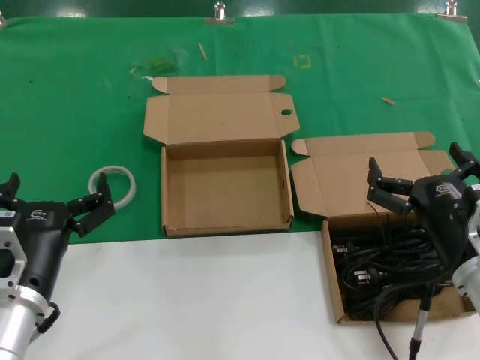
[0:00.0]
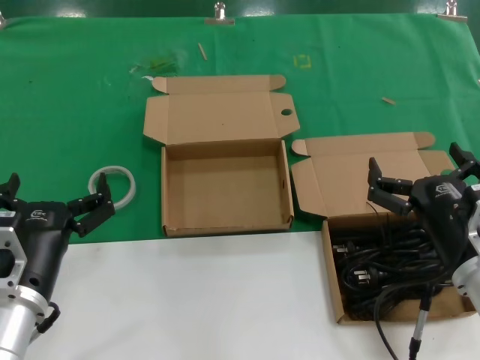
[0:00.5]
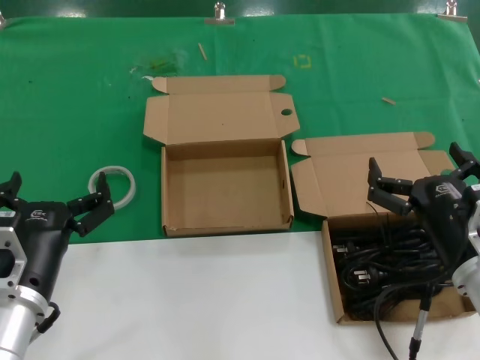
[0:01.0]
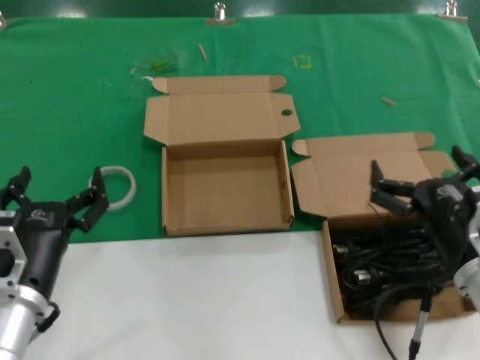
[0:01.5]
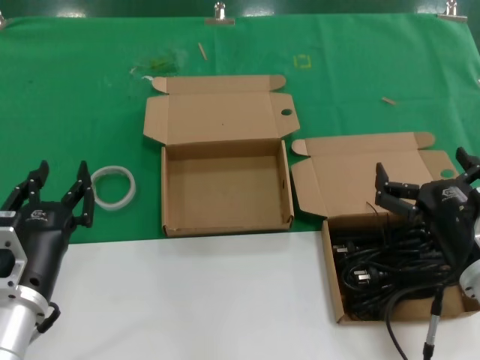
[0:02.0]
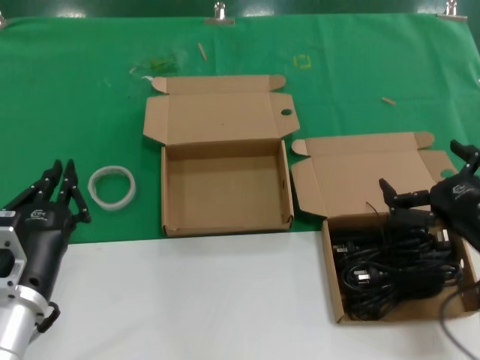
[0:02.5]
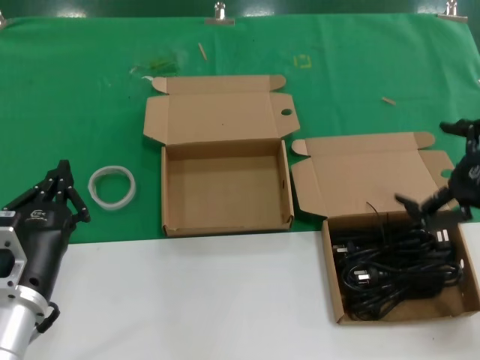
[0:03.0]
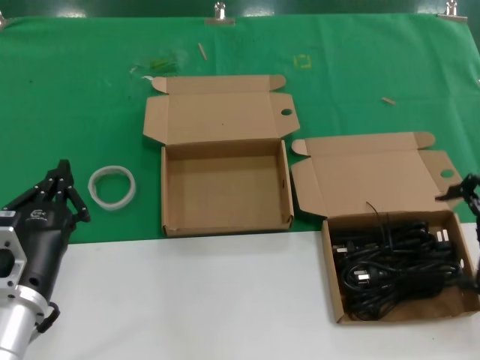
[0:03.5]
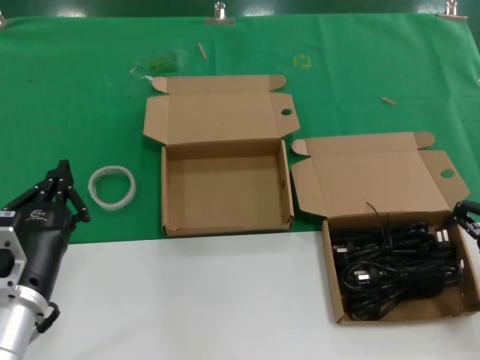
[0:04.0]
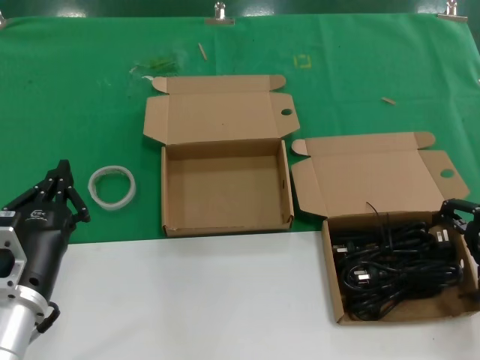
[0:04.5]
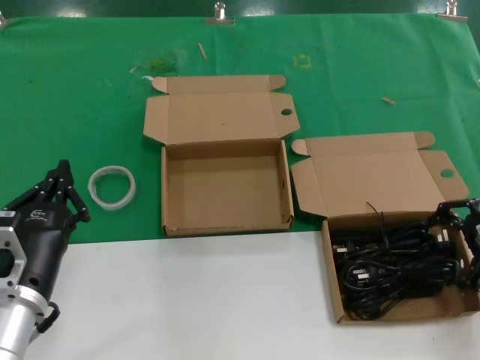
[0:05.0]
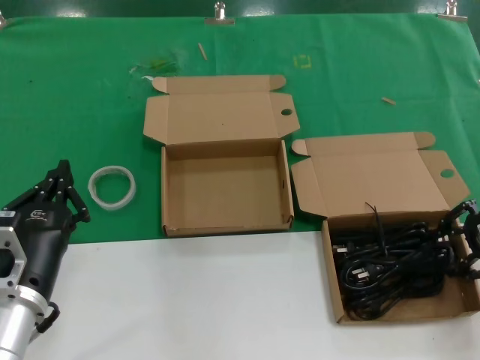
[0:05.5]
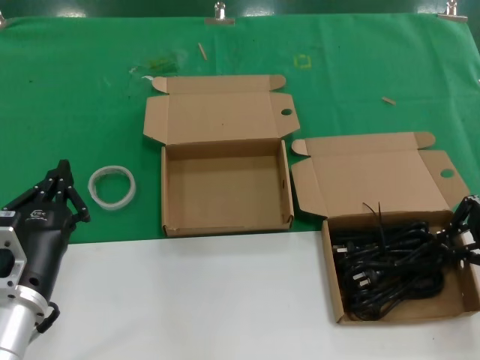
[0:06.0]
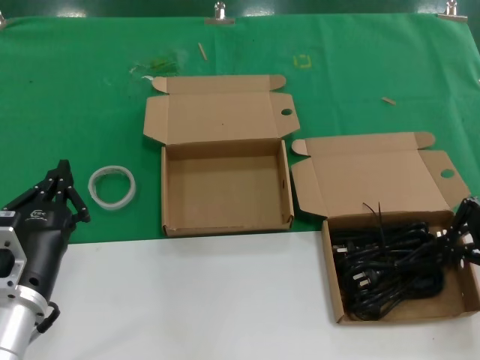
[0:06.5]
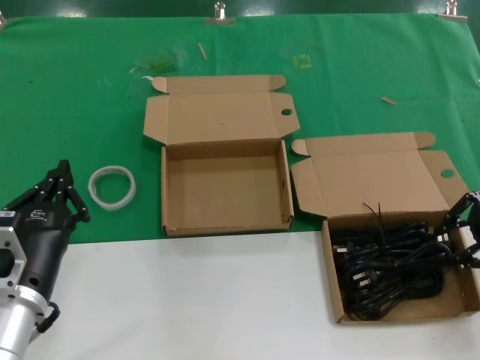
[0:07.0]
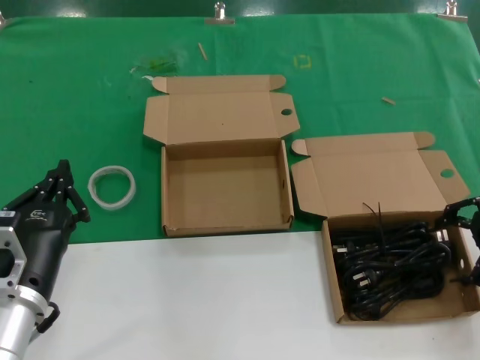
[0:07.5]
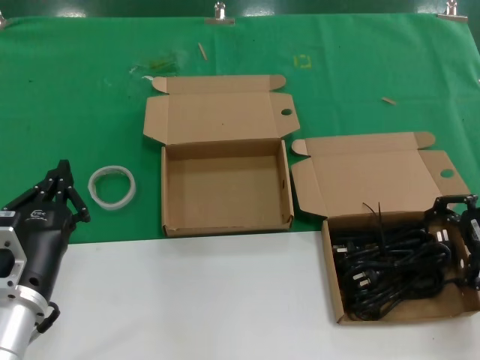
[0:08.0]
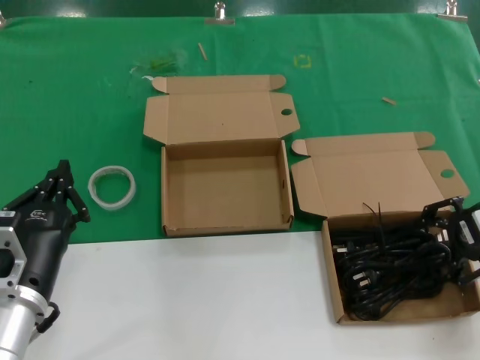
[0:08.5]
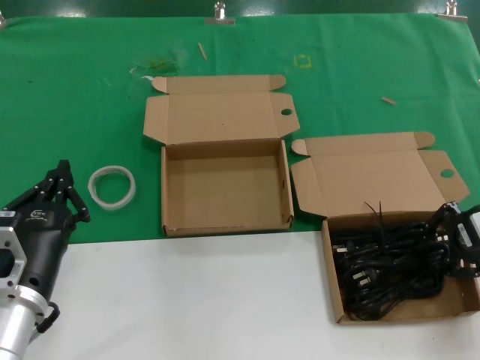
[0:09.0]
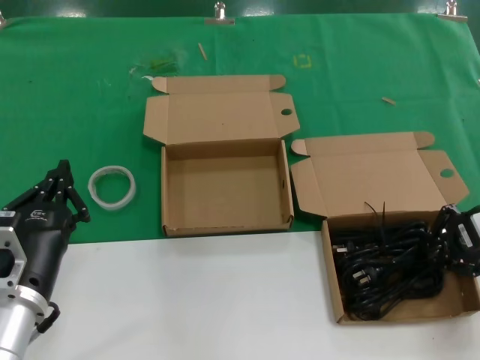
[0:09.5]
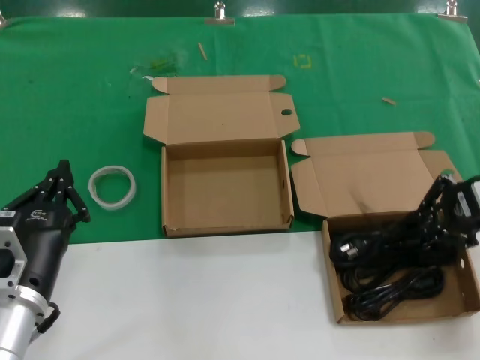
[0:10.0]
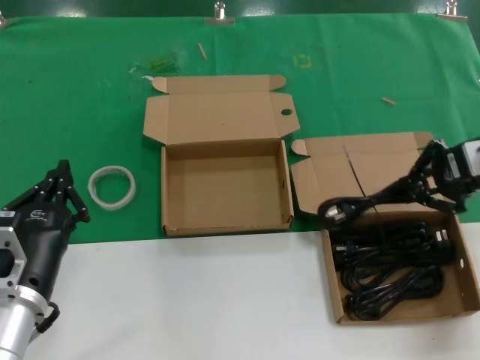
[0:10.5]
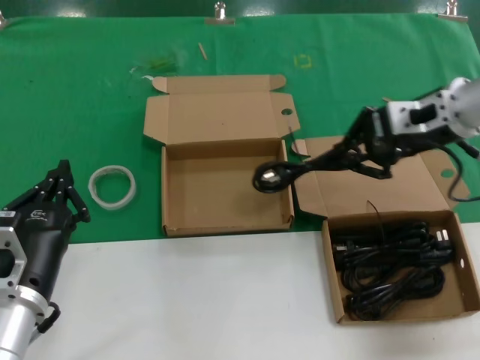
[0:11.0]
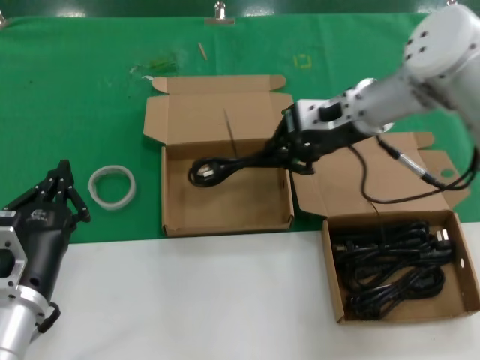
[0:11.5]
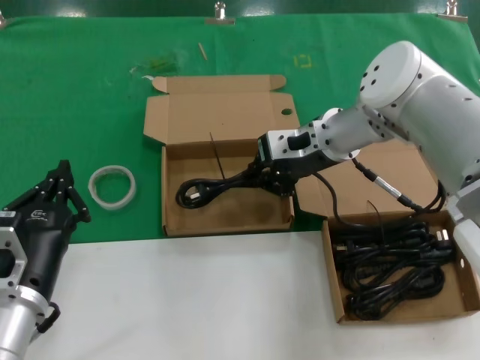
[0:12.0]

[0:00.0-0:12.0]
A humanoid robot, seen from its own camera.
Task of the whole recording: take the parts from the box containing them and put them into an empty box.
Step, 0:00.0 to 0:09.0: Grasp the data cable.
0:00.0 to 0:02.0: Neither hand changes place.
0:02.0 to 0:04.0: The right hand goes roughly 20 cm to the right, upward and forward.
0:04.0 to 0:10.0: The hands make only small movements.
0:10.0 to 0:12.0: The right hand travels to the left and forward by roughly 25 cm.

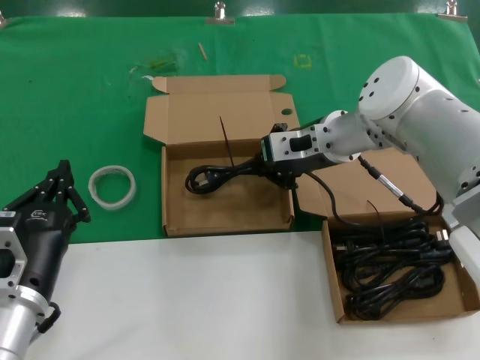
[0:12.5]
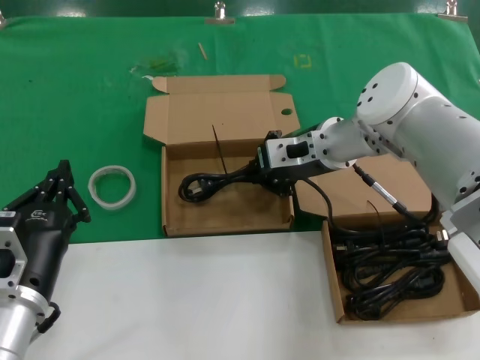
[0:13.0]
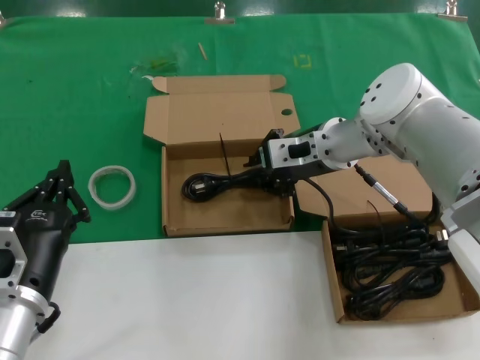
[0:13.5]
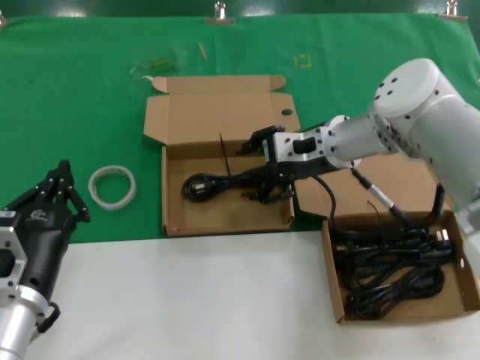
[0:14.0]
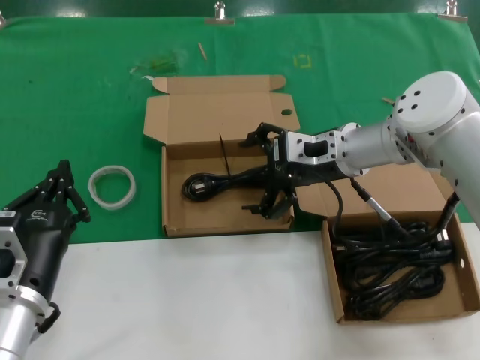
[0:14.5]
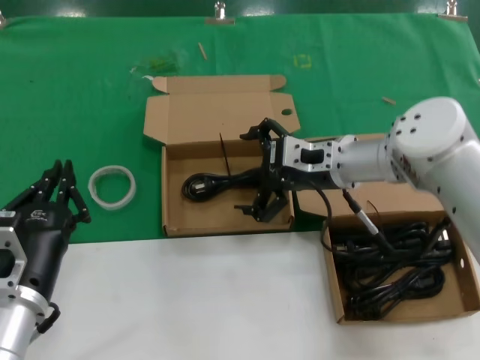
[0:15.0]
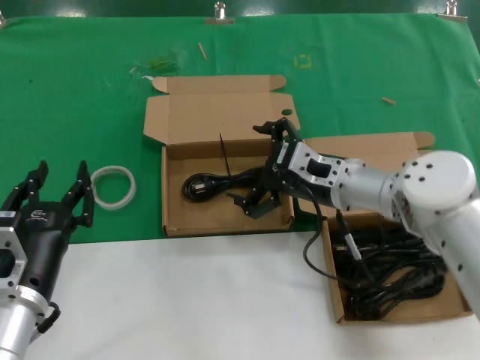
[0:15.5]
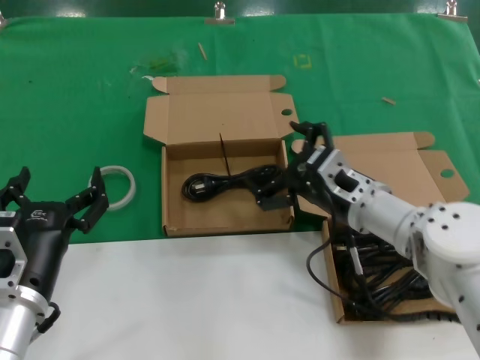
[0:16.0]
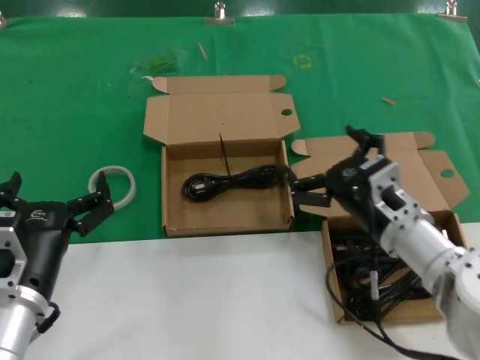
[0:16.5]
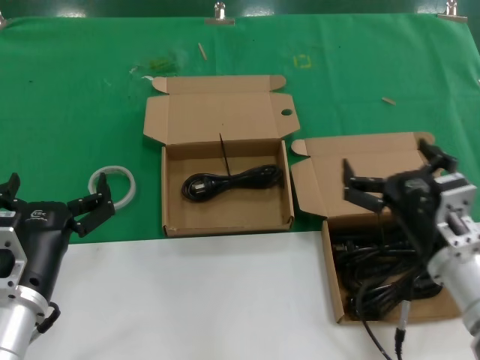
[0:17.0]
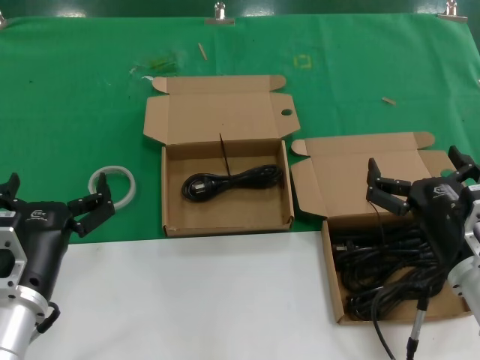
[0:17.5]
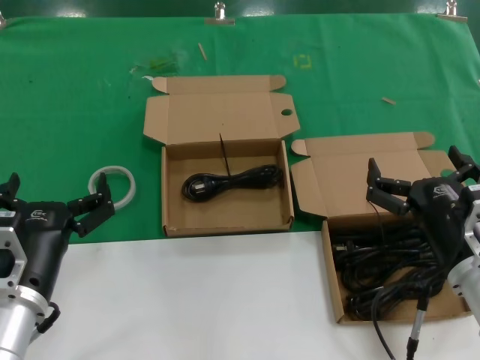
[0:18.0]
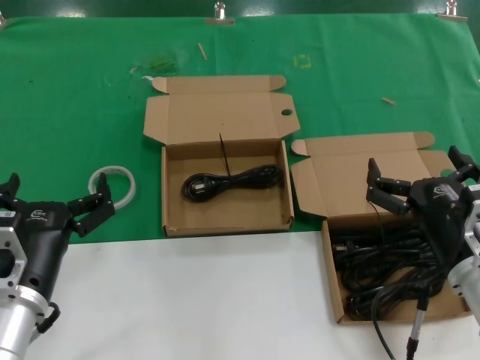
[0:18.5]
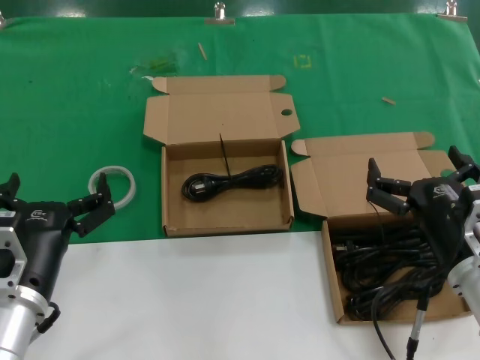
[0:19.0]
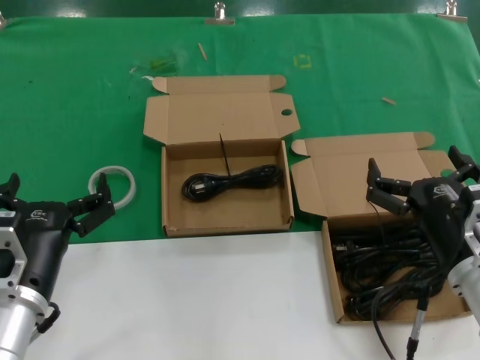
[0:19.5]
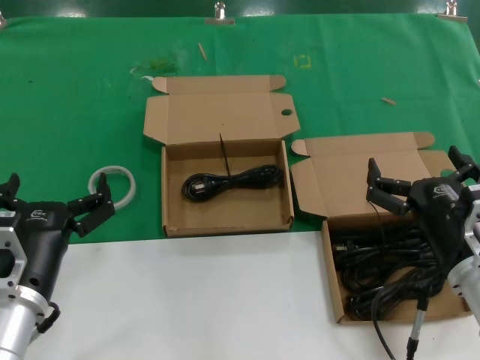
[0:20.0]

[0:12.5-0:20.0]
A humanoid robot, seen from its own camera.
Task of the whole recording: take the parts from the box containing them and put them into an empty box.
0:12.5 to 0:14.5: The hands move only a little.
0:14.5 to 0:16.5: The right hand moves backward and downward, about 15 cm.
0:16.5 to 0:18.0: The right hand shifts approximately 10 cm backward.
0:18.0 to 0:20.0: Both hands stay put.

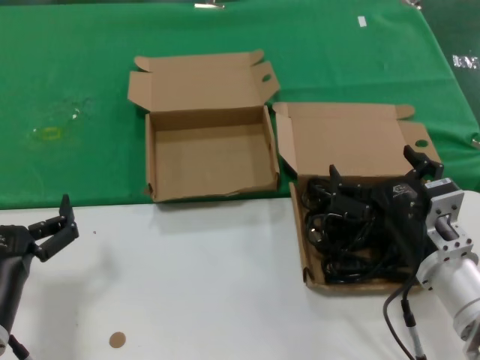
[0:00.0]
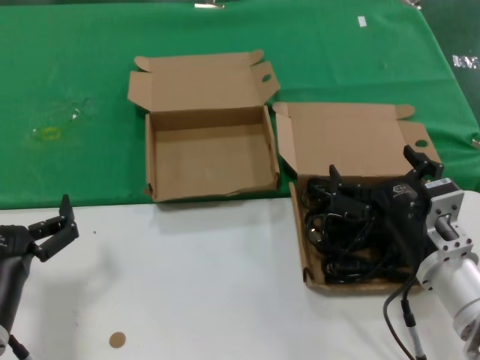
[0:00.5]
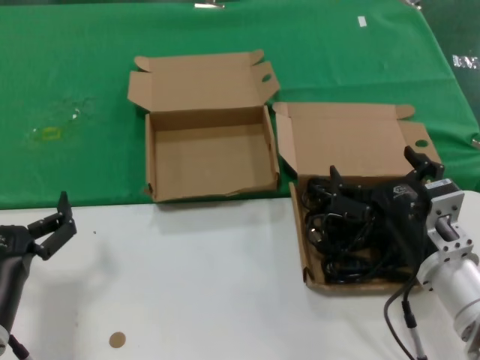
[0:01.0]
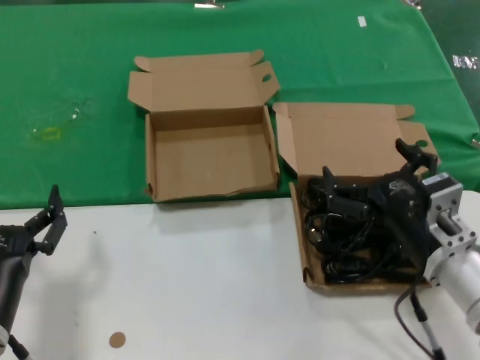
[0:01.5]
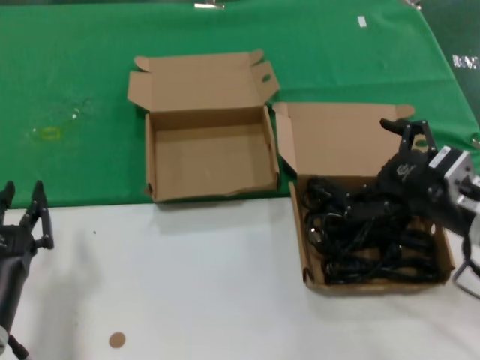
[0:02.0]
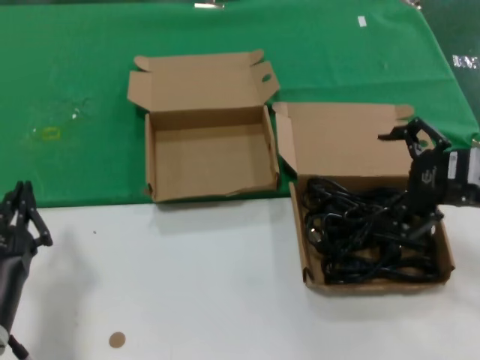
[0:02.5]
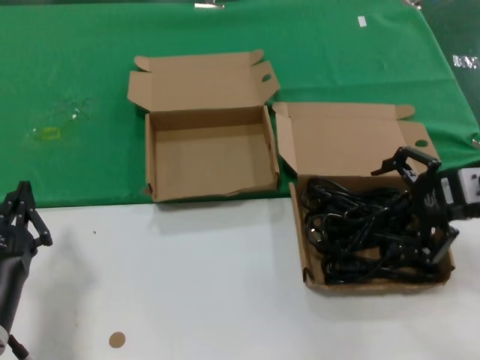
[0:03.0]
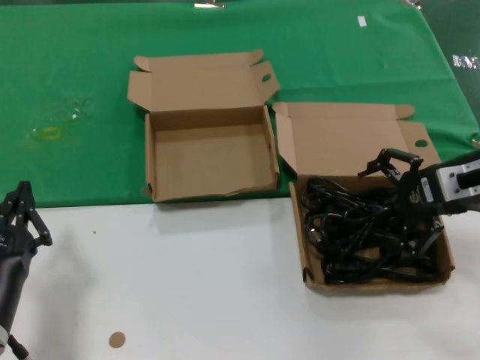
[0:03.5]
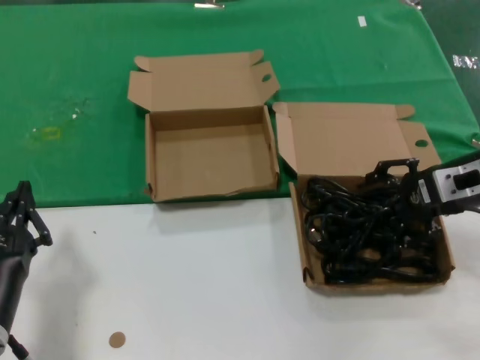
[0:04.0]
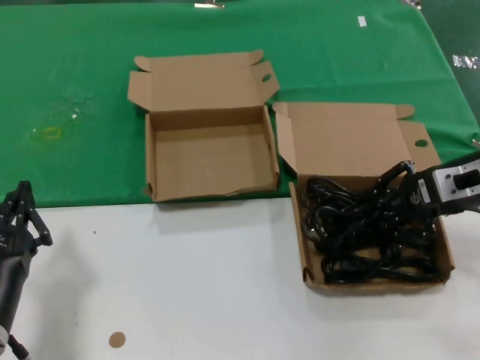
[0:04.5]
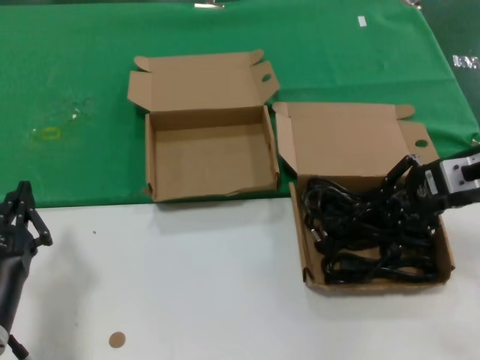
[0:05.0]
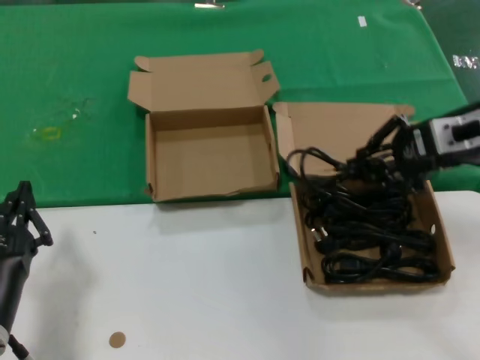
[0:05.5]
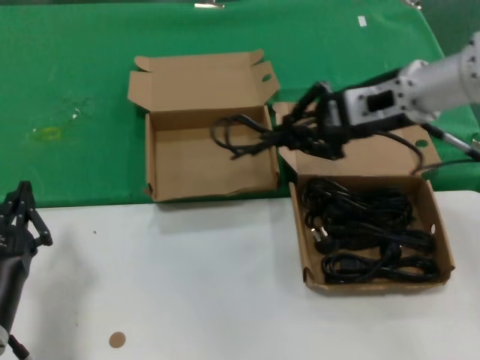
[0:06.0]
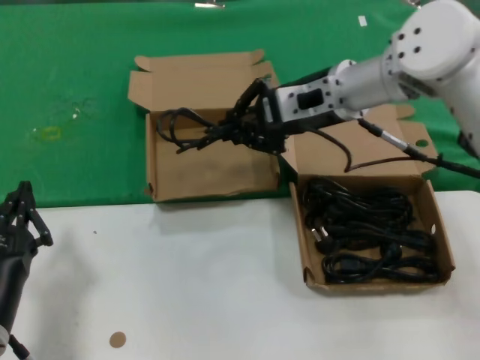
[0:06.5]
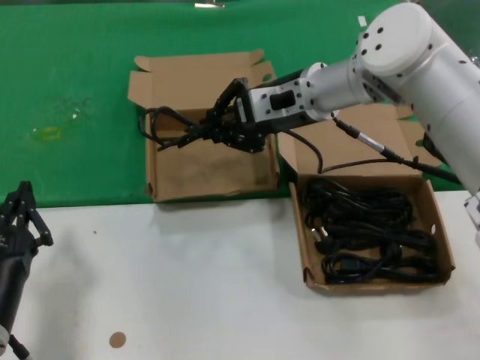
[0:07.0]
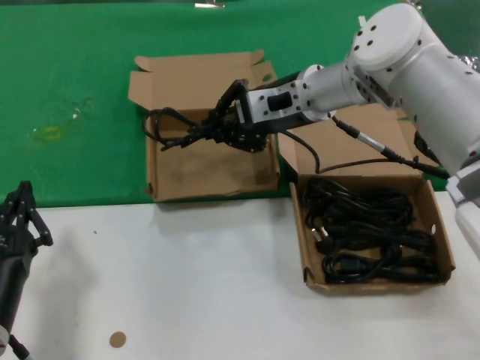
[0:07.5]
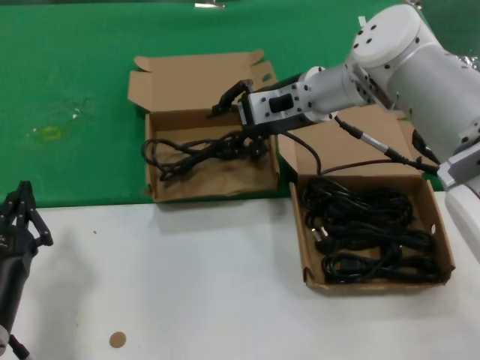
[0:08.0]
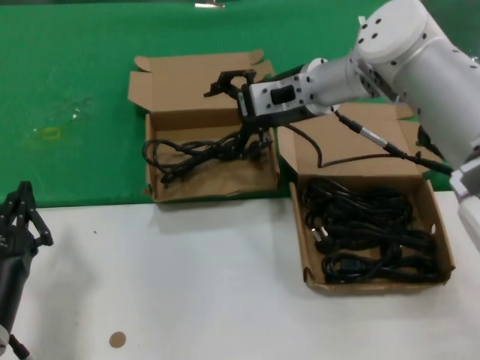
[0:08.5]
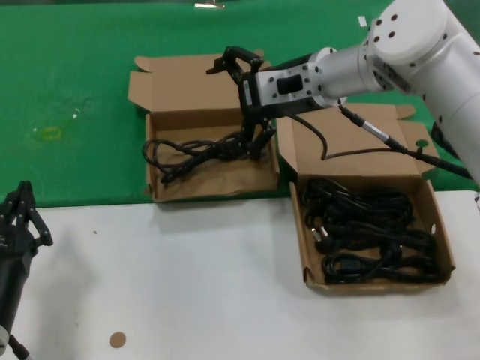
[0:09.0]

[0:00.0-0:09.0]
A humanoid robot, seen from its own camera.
Task of the whole recording: take the parts from the box containing them and put them into an empty box.
Step, 0:00.0 to 0:04.5: Grasp the data cable.
Step, 0:05.0 to 0:07.5: Place the data cable in the another box.
0:00.0 to 0:02.0: The right hand travels to the right and upward by approximately 10 cm.
0:02.0 to 0:04.5: The right hand moves forward and upward, roughly 10 cm.
0:04.5 to 0:07.0: The right hand goes roughly 25 cm to the left and forward.
0:07.0 to 0:09.0: There are only small adjustments of the hands.
